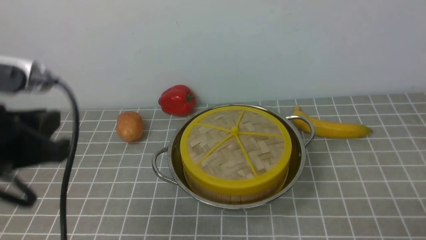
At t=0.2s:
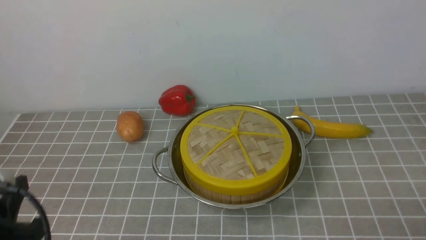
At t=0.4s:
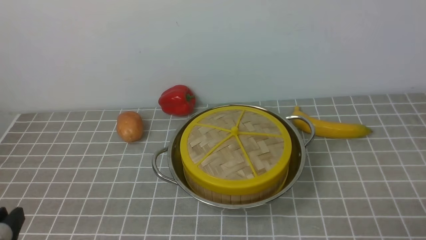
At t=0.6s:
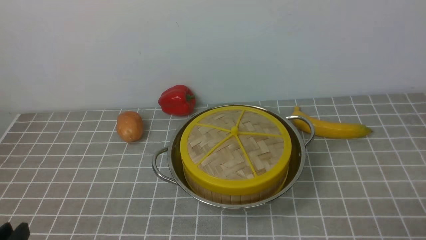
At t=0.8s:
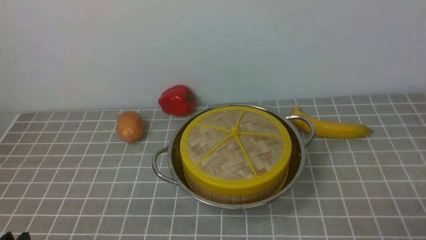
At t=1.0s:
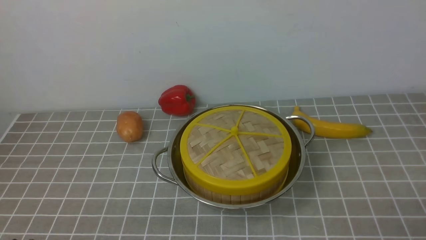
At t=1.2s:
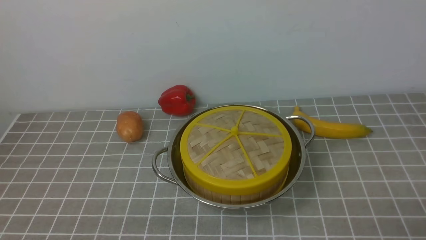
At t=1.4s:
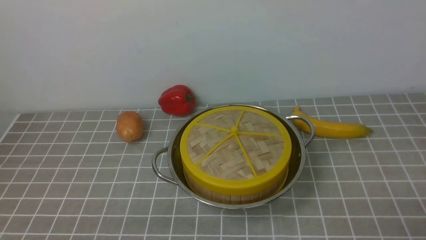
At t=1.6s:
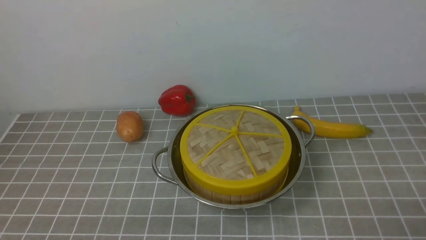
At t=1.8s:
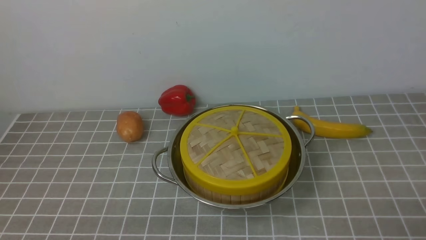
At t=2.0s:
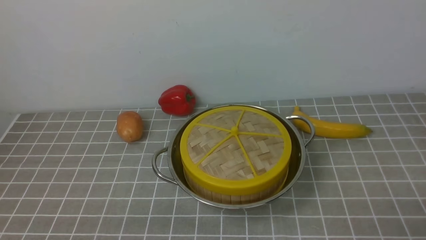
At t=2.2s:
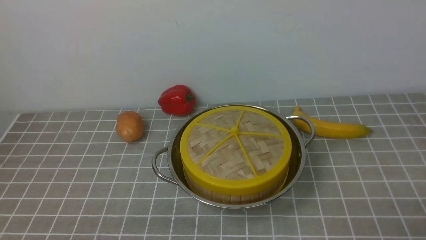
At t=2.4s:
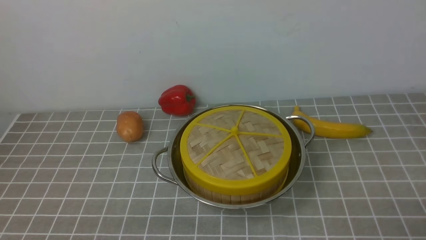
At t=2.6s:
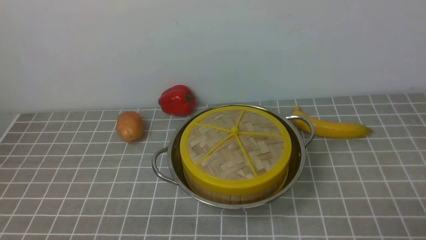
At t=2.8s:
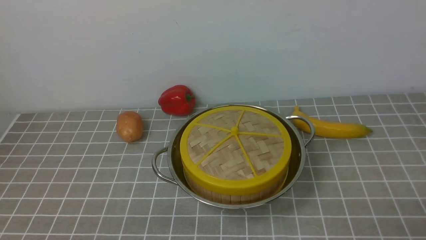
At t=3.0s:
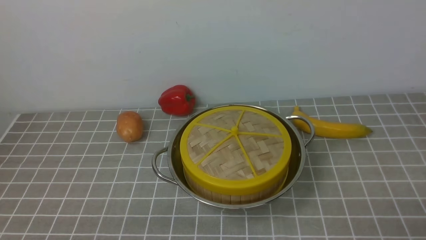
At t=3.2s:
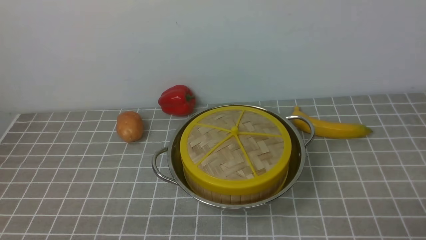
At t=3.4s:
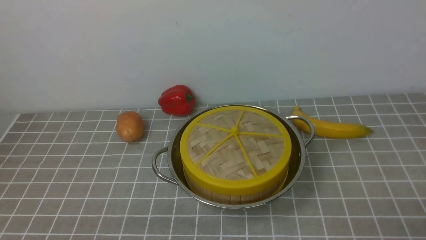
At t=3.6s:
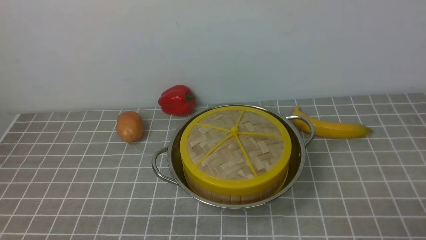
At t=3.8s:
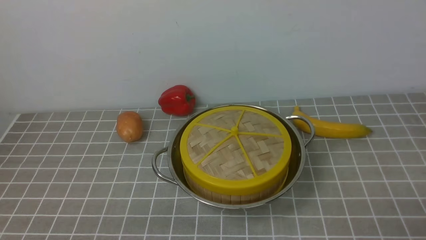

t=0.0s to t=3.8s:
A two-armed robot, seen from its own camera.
Task of the whole recording: place the steamer in the pot on the grey tablecloth, and put the lid on the steamer.
t=0.0s to t=1.2s: The left gripper moves downward and backward, roughly 20 cm.
t=1.2s to t=3.8s: Both grippers stay about where they are.
